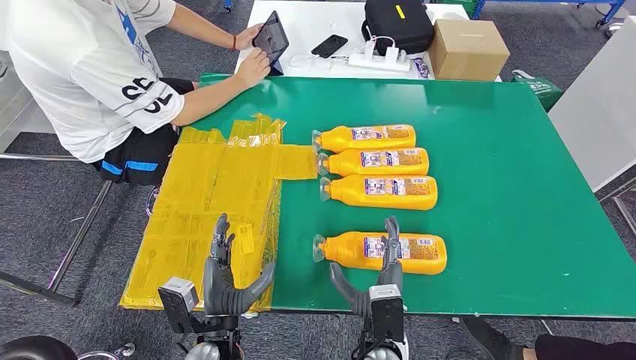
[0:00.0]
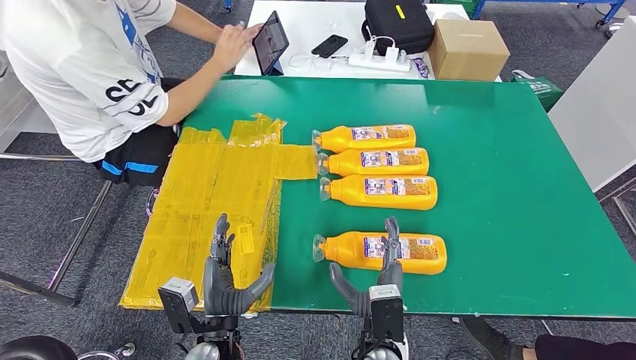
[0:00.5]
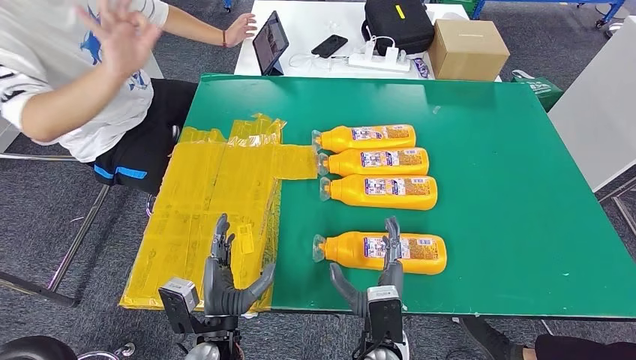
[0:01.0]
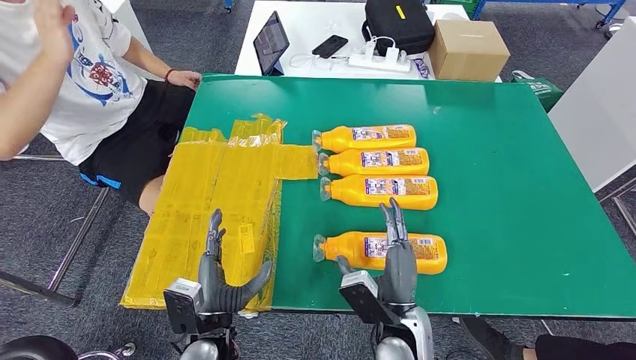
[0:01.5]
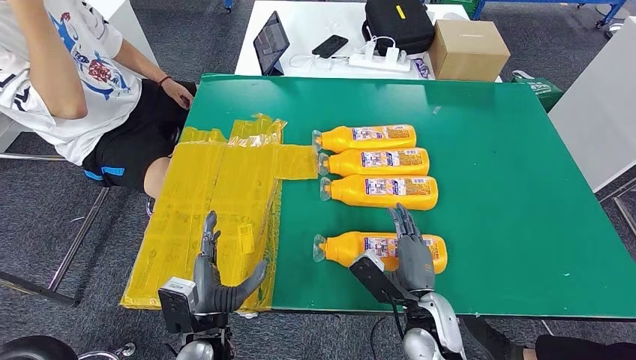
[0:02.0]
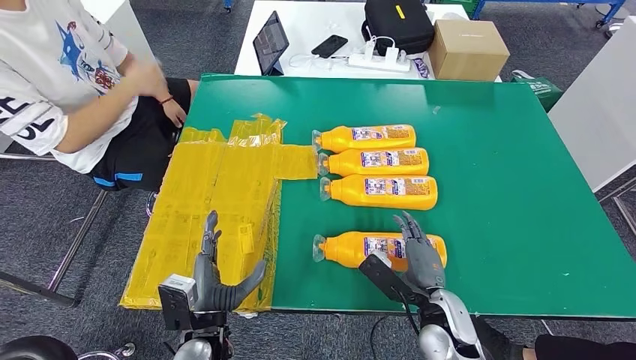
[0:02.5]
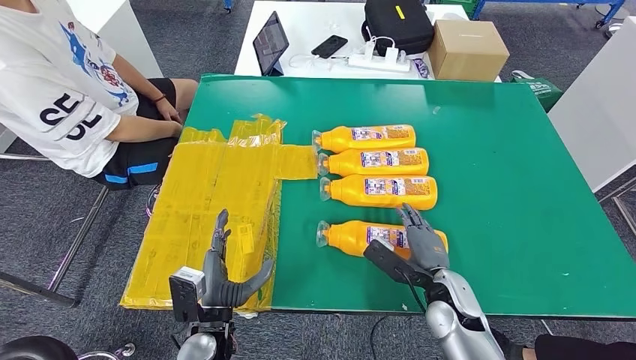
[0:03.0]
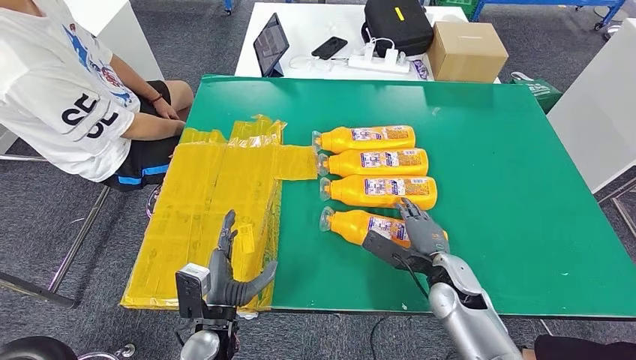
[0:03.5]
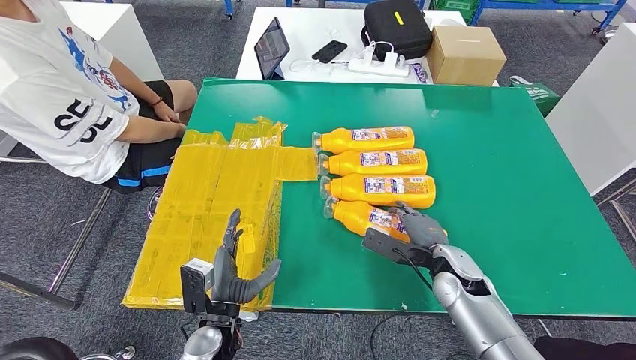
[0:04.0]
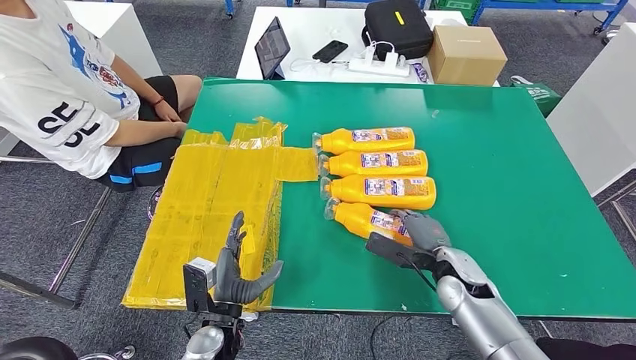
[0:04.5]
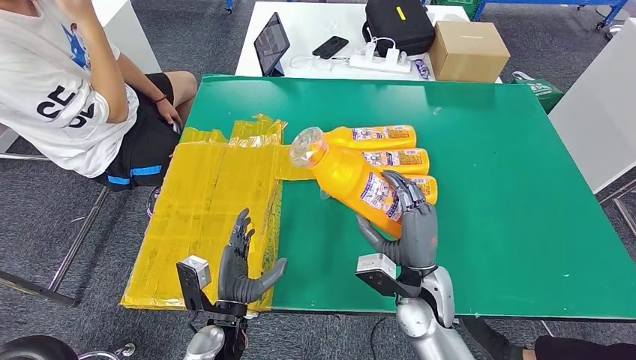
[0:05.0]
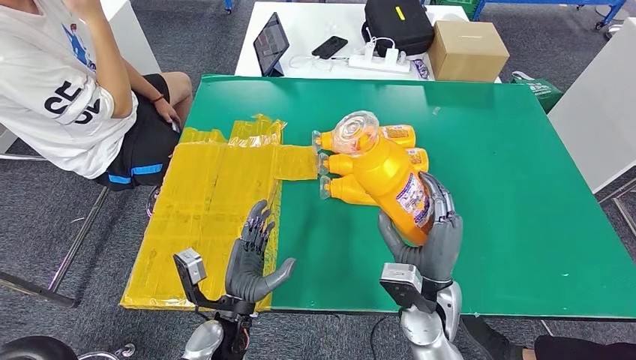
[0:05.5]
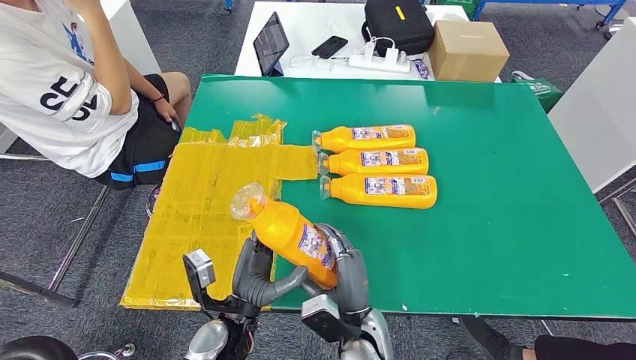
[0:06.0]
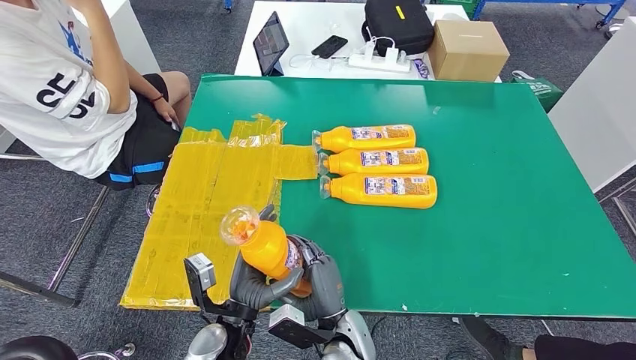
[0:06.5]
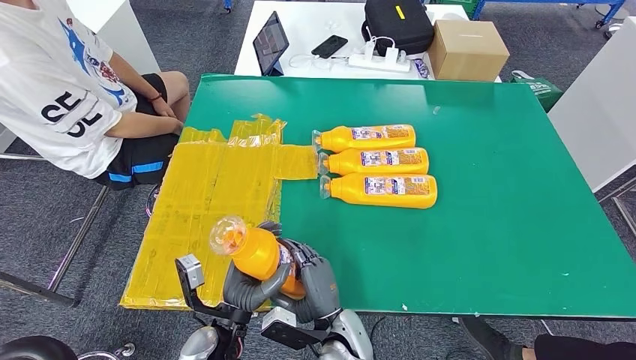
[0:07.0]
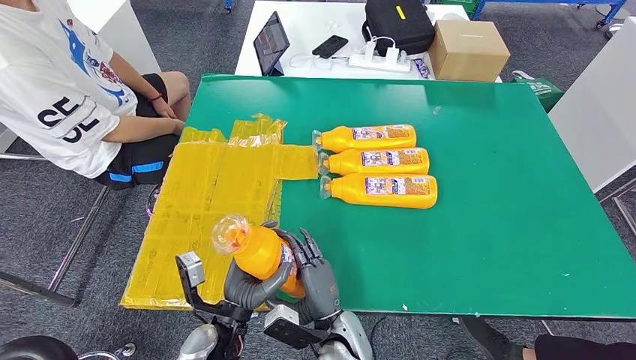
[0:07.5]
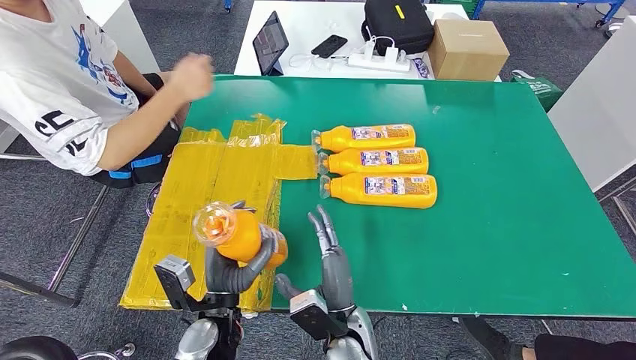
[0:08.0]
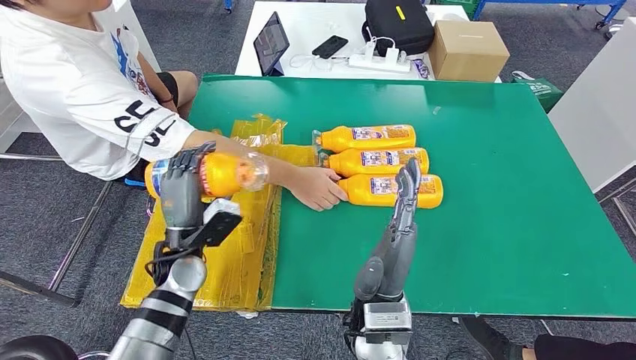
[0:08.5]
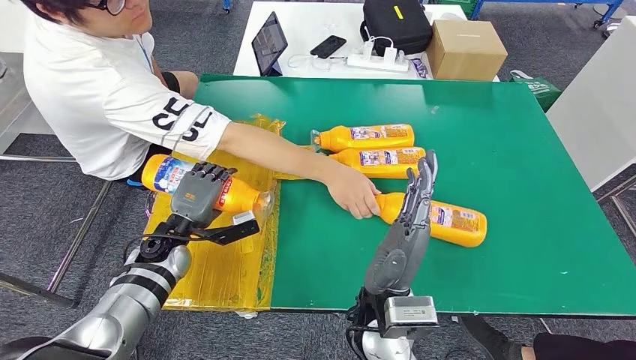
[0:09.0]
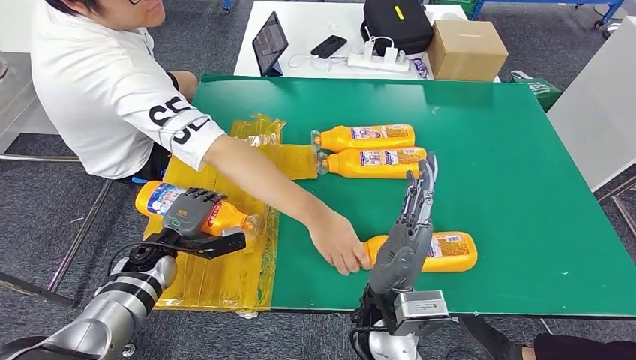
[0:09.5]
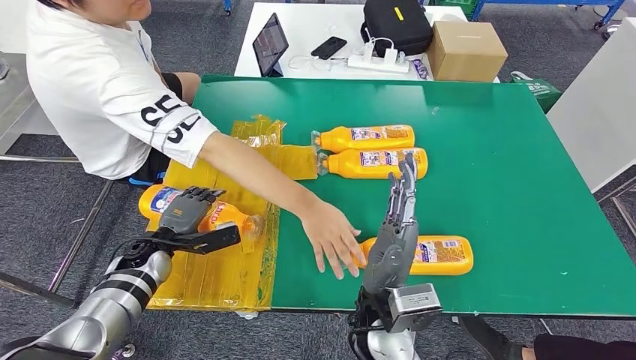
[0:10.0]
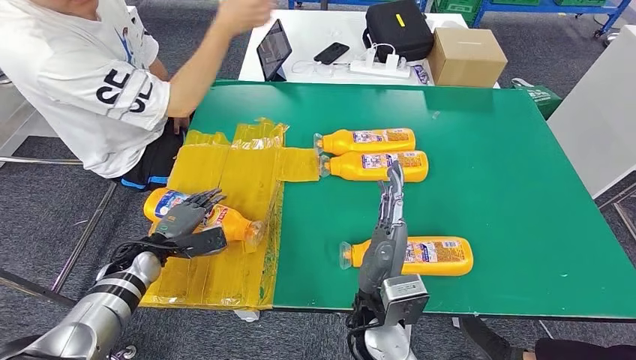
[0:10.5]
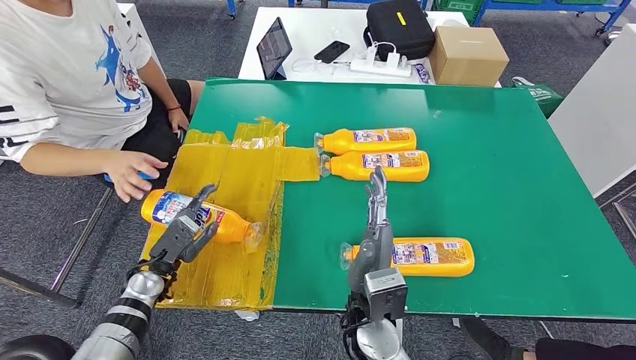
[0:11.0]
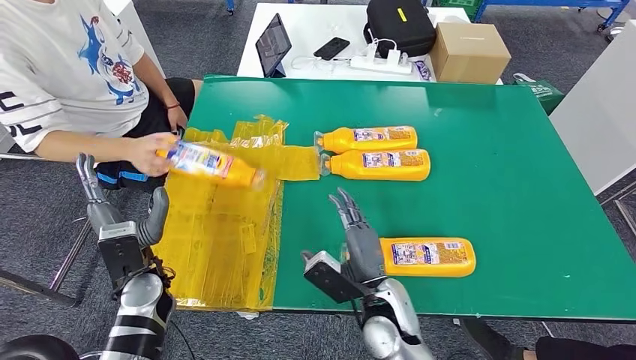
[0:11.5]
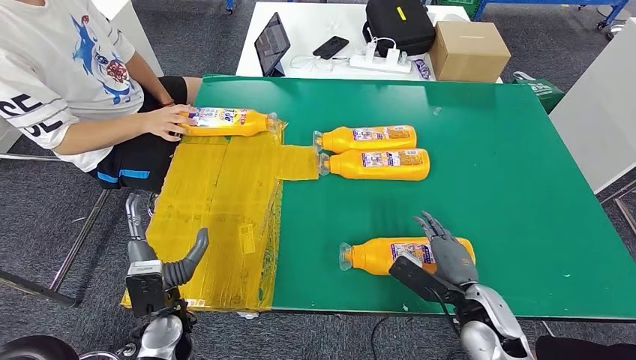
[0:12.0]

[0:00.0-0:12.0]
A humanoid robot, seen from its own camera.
Step, 0:00.0 to 0:06.0: Take the fast-moving consumer goods bottle from the table.
Step, 0:06.5 to 0:11.0: Flip the fast-moving consumer goods bottle to the front side.

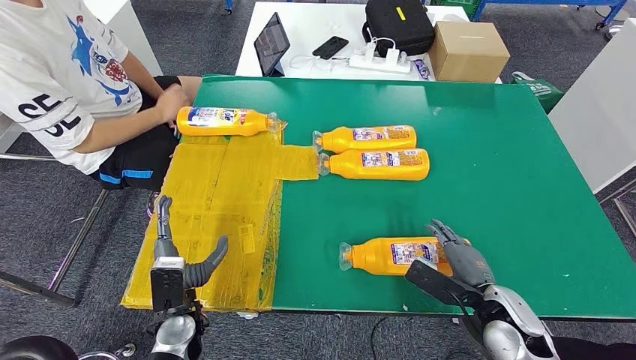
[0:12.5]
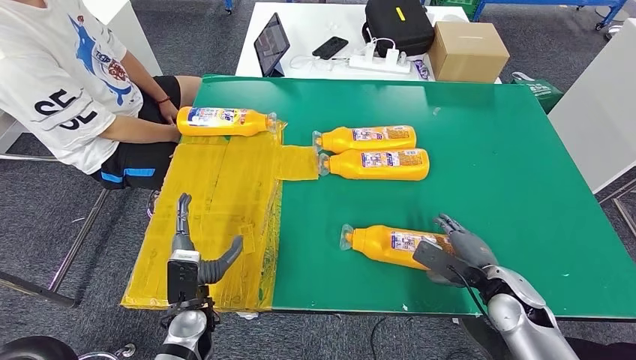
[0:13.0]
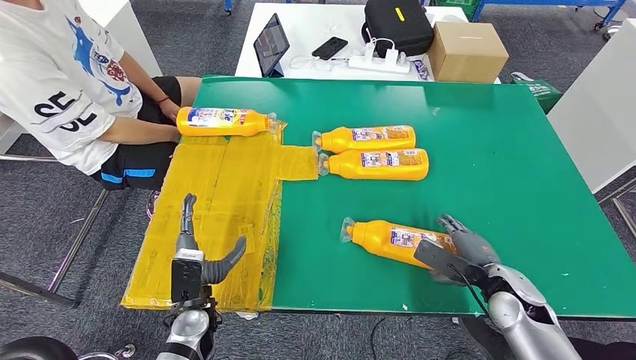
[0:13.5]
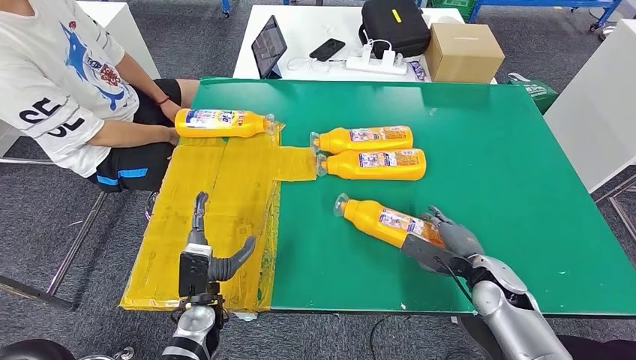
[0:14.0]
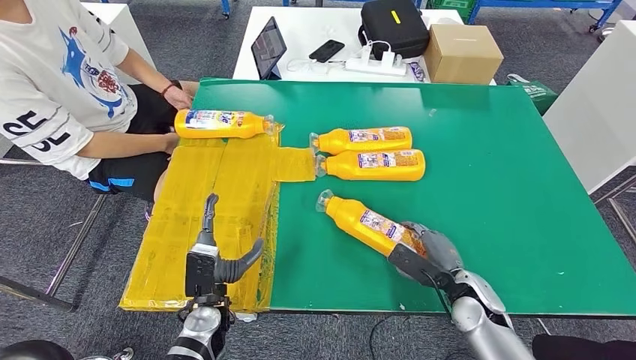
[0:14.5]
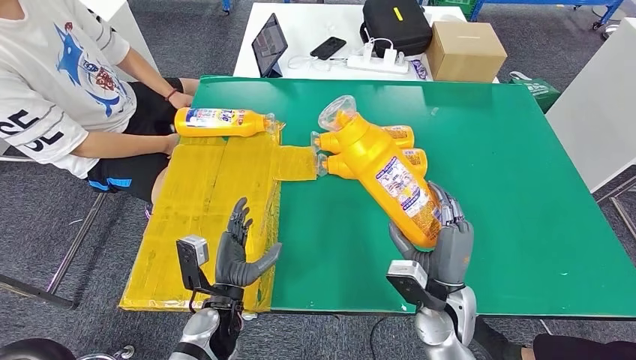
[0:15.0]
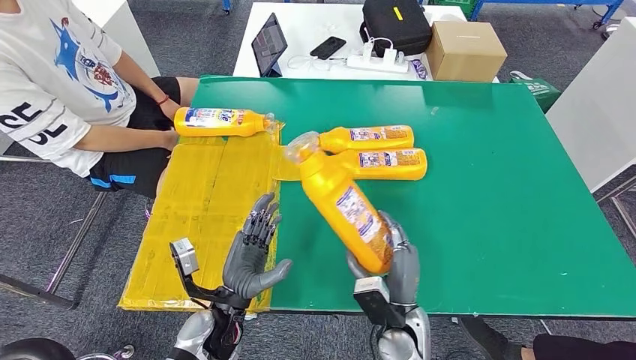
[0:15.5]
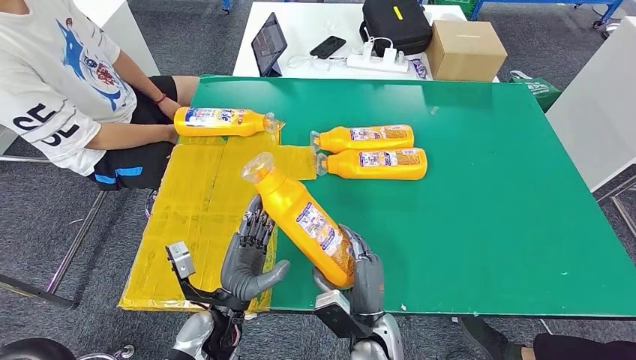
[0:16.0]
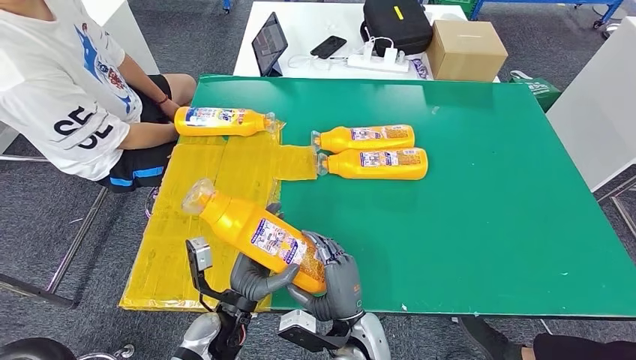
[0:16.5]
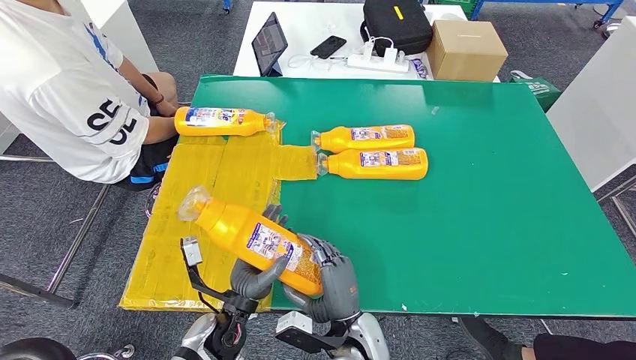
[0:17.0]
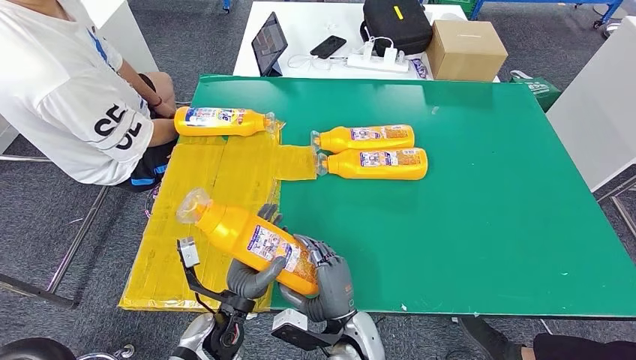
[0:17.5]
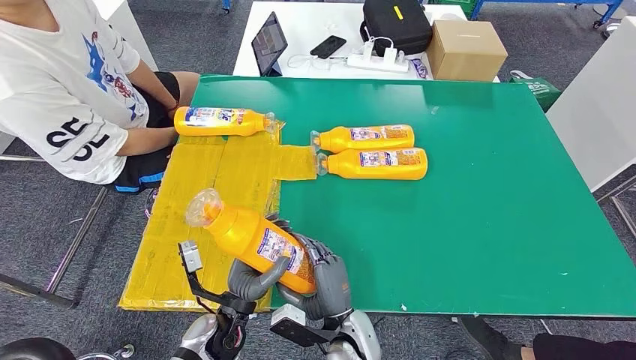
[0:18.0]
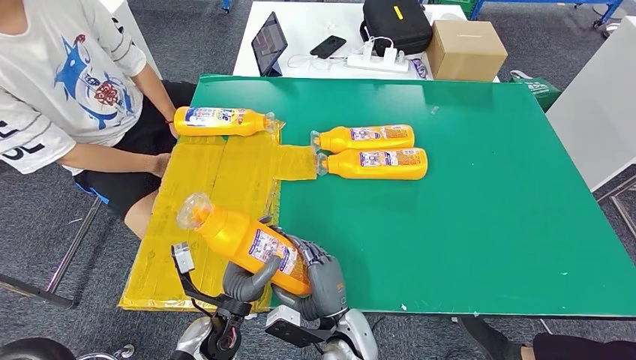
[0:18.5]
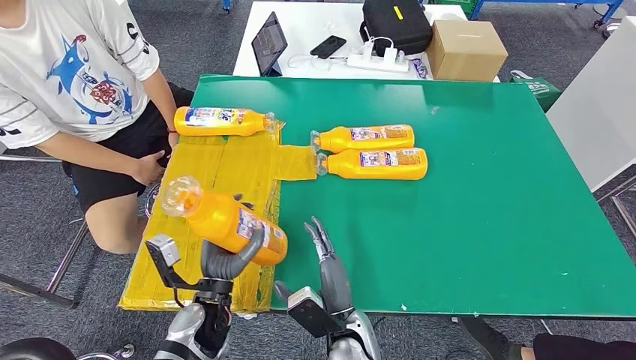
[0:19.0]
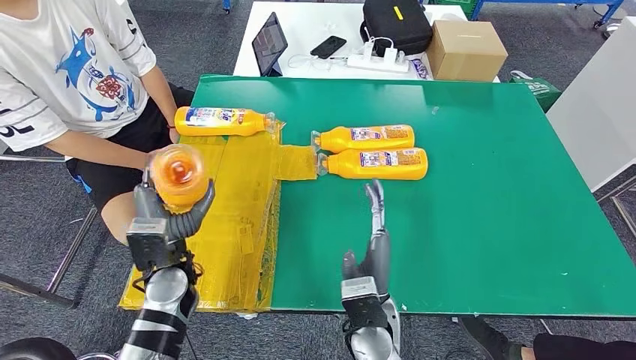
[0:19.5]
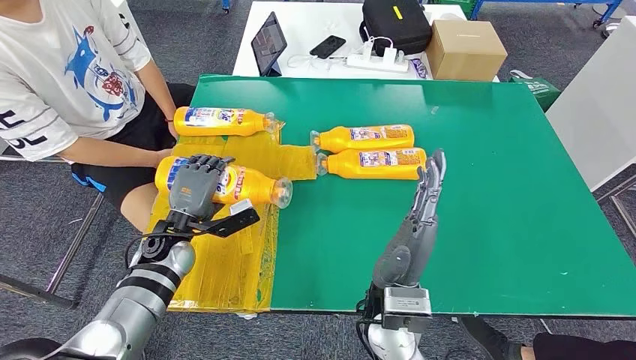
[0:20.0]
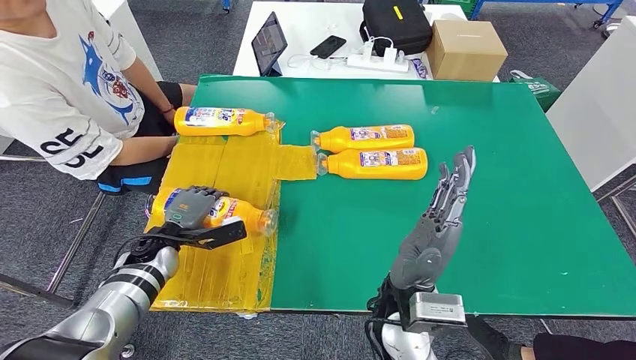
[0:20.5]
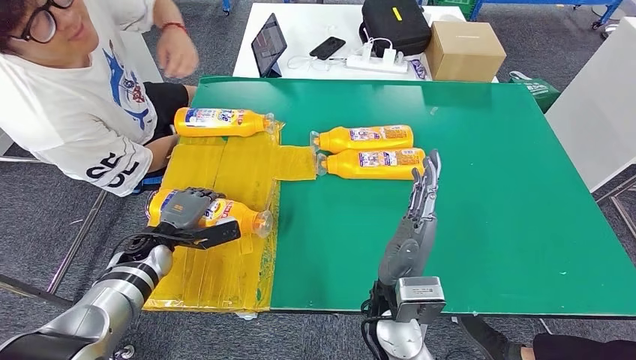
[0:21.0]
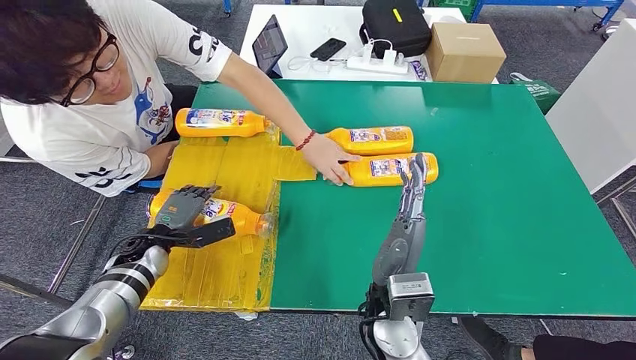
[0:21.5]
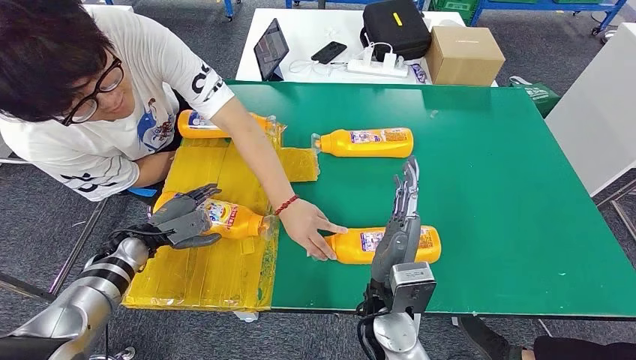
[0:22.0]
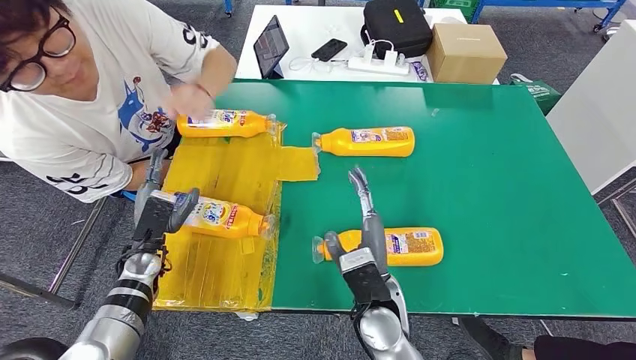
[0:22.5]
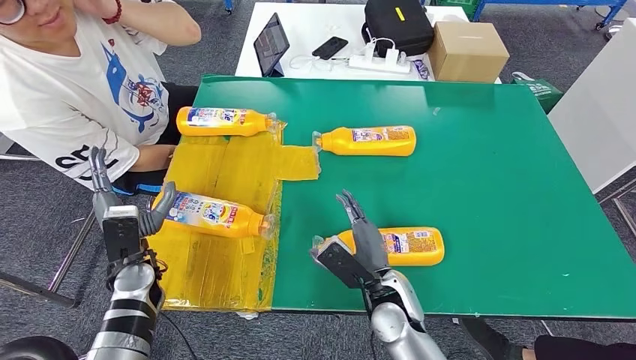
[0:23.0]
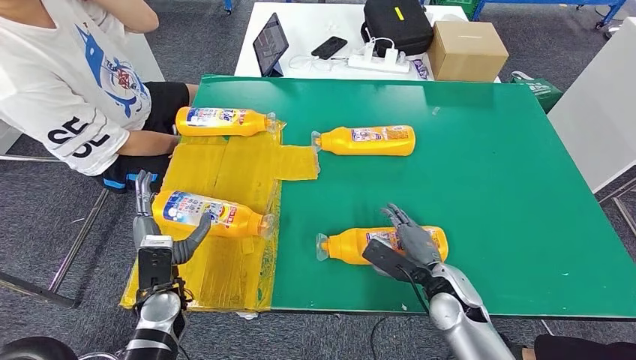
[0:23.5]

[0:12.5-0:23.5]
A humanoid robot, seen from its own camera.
Step, 0:12.5 to 0:14.5: Pick up the fast-moving consumer goods bottle from the table.
Step, 0:15.5 to 0:22.0: Flip the fast-moving consumer goods bottle to the front side.
